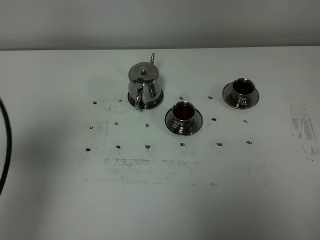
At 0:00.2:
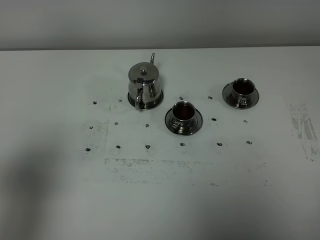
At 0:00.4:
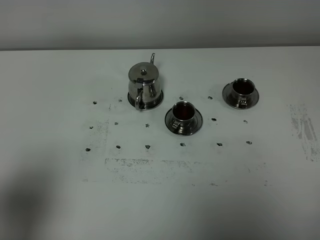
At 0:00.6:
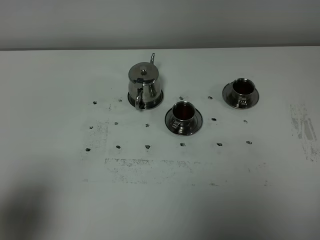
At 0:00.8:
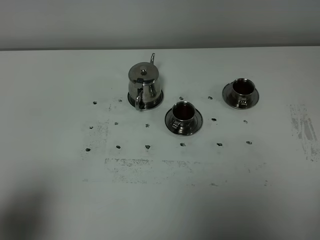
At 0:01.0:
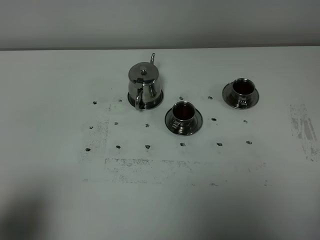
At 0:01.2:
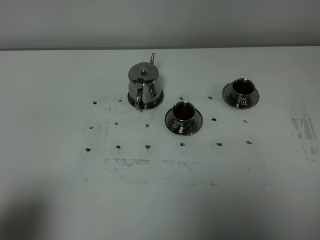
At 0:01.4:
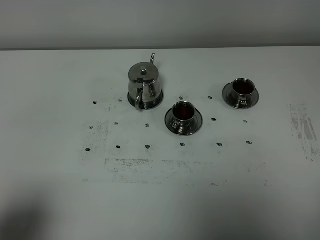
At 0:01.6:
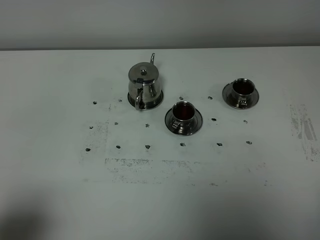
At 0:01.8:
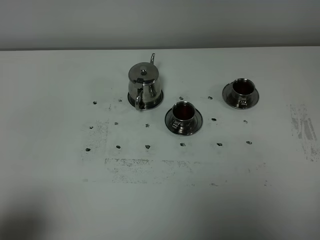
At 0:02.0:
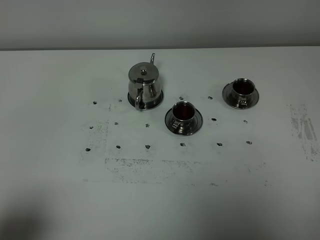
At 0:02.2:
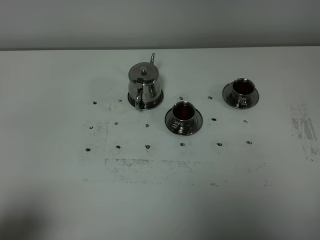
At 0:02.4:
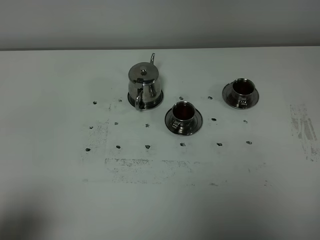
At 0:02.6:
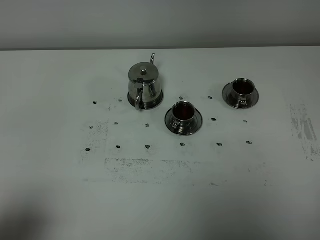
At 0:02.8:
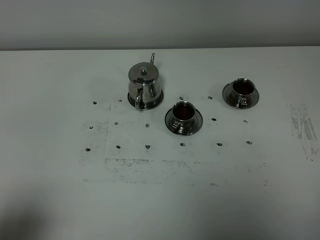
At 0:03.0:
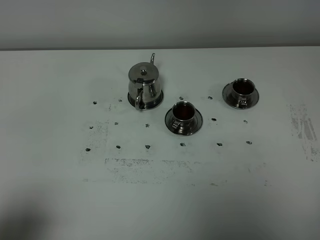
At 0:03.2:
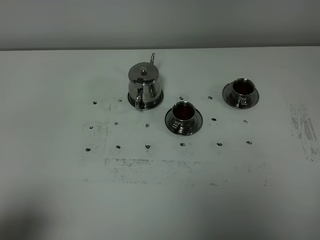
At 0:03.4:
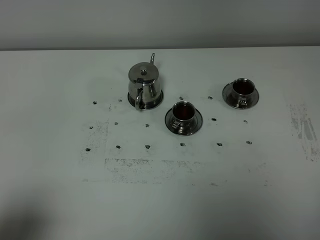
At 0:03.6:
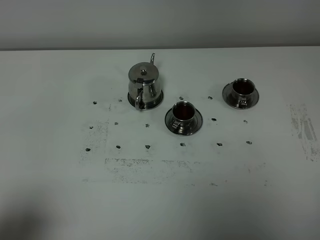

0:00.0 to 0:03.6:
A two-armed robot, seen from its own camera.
Task of the whole recording: grasp the stainless steel teapot and pour the tea into the two stainless steel teacups one by one, put the stainless steel teapot back in its original place.
0:00.0 to 0:01.8: The left gripper travels backward and downward by some 15 cm.
